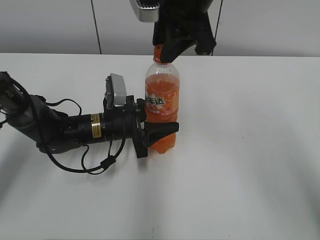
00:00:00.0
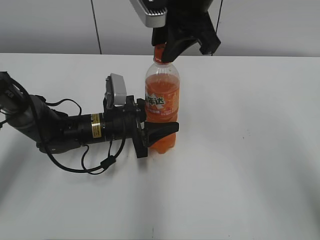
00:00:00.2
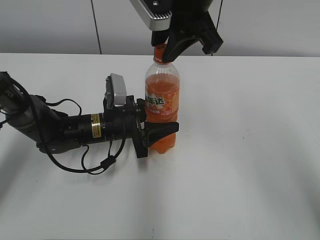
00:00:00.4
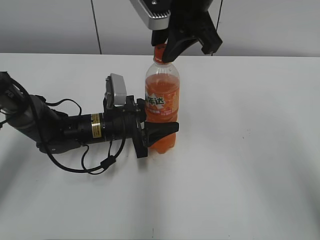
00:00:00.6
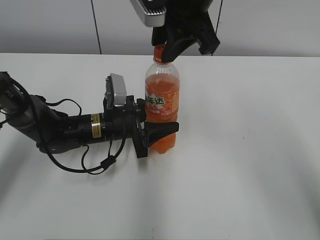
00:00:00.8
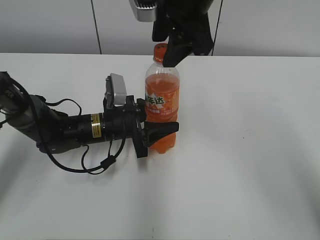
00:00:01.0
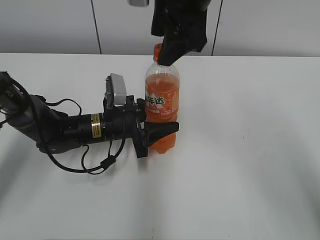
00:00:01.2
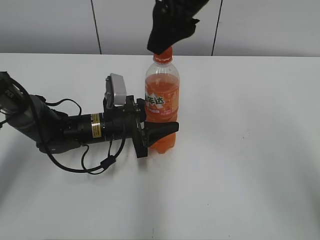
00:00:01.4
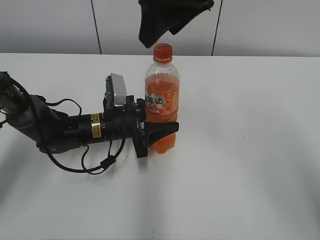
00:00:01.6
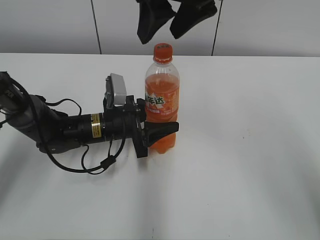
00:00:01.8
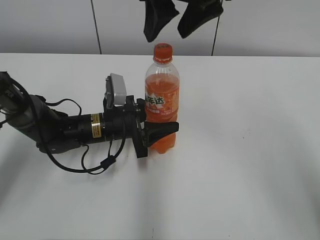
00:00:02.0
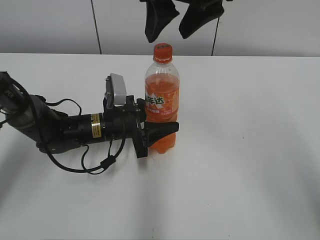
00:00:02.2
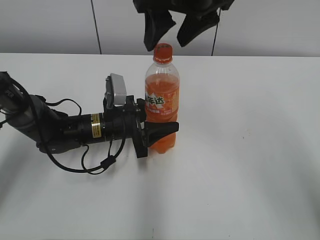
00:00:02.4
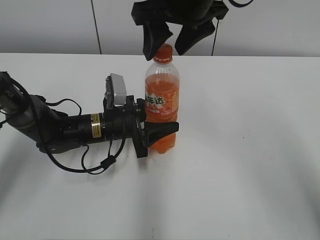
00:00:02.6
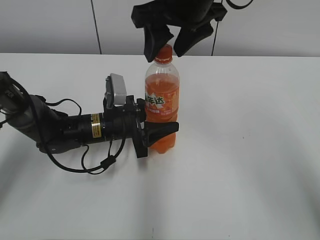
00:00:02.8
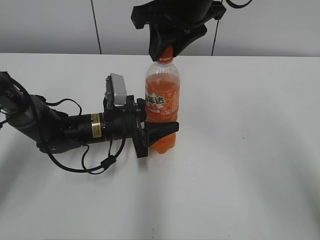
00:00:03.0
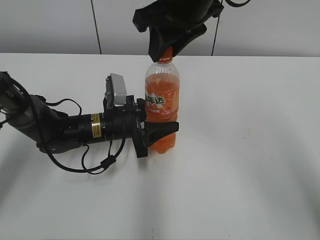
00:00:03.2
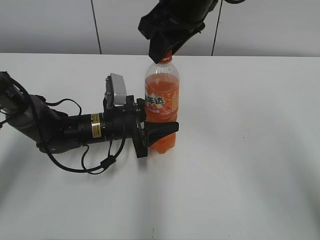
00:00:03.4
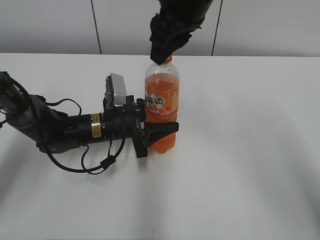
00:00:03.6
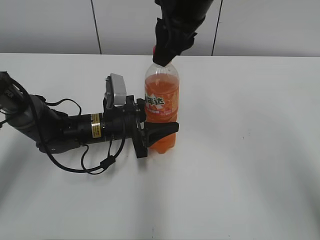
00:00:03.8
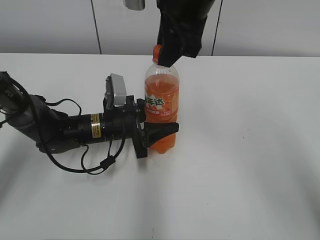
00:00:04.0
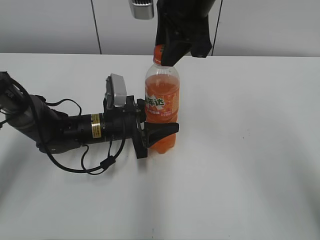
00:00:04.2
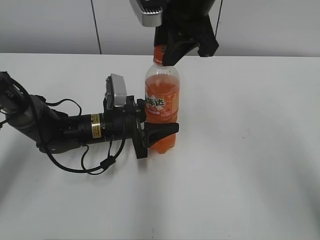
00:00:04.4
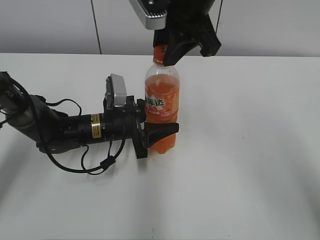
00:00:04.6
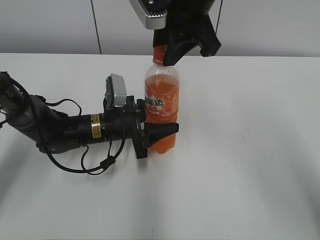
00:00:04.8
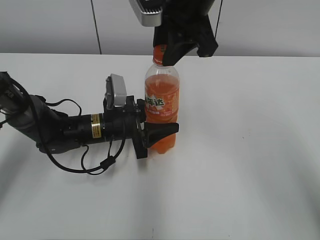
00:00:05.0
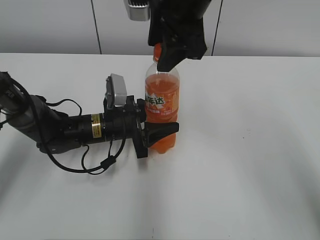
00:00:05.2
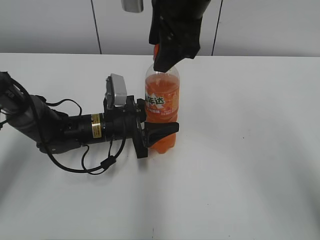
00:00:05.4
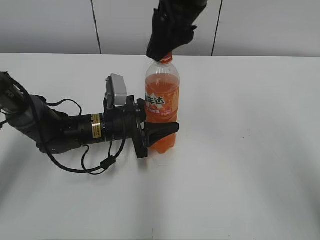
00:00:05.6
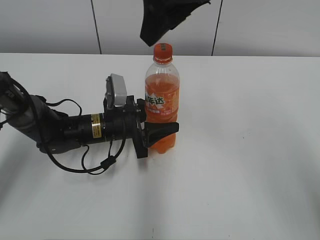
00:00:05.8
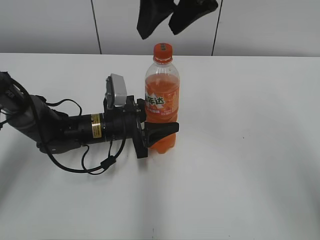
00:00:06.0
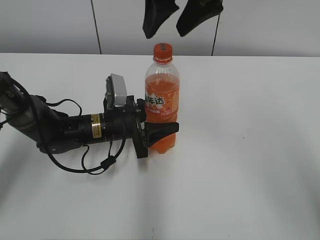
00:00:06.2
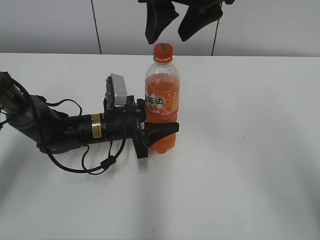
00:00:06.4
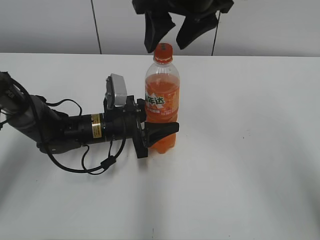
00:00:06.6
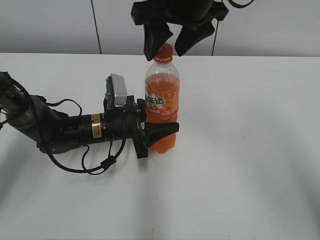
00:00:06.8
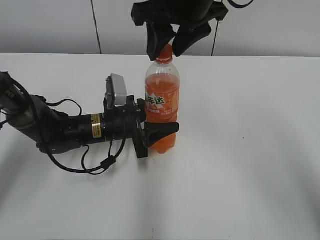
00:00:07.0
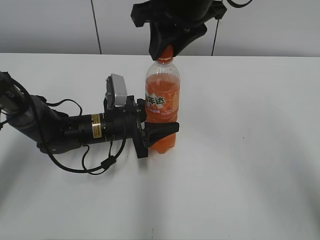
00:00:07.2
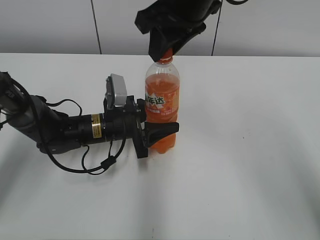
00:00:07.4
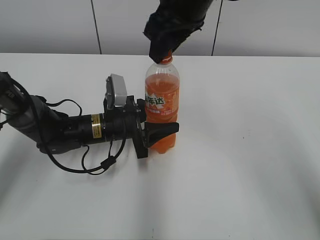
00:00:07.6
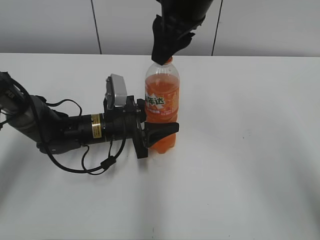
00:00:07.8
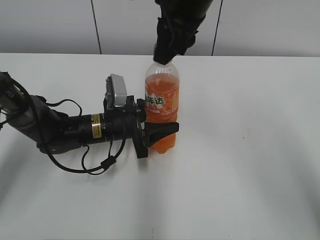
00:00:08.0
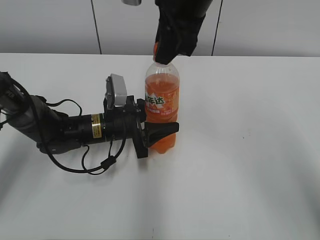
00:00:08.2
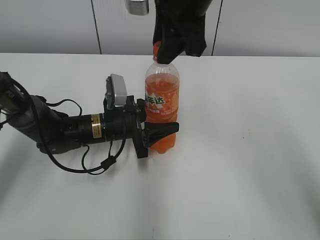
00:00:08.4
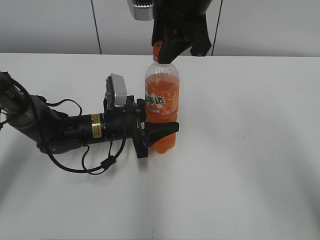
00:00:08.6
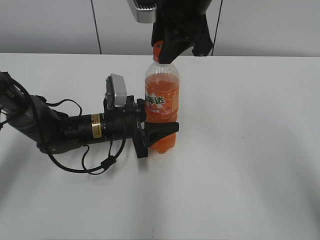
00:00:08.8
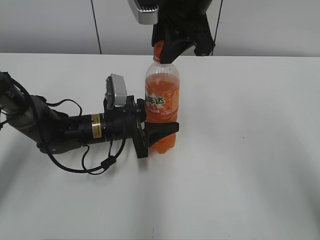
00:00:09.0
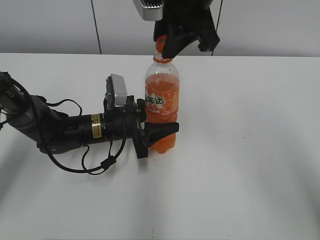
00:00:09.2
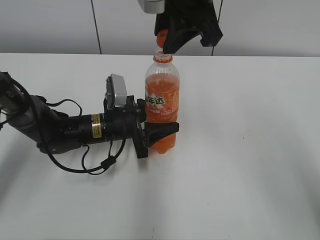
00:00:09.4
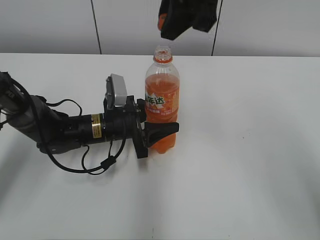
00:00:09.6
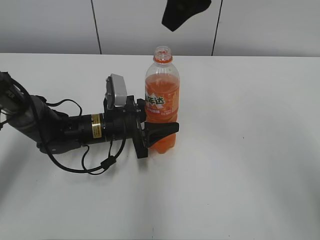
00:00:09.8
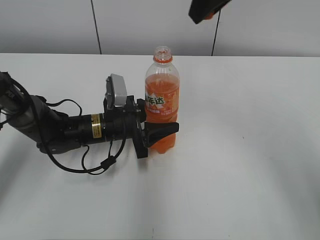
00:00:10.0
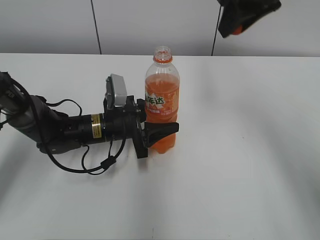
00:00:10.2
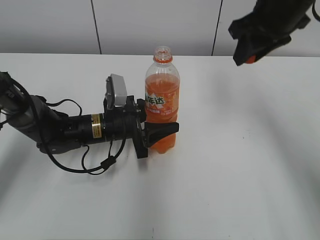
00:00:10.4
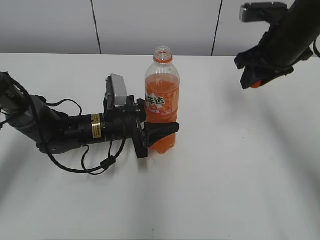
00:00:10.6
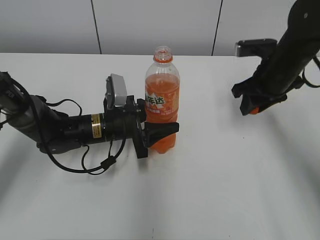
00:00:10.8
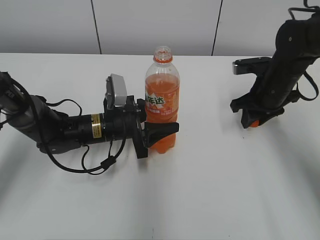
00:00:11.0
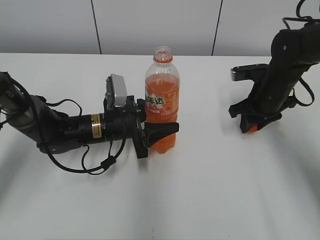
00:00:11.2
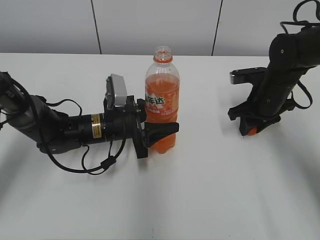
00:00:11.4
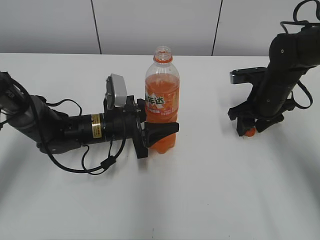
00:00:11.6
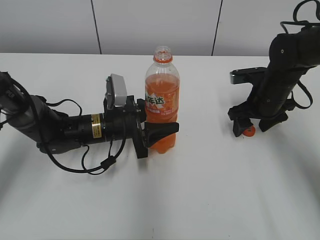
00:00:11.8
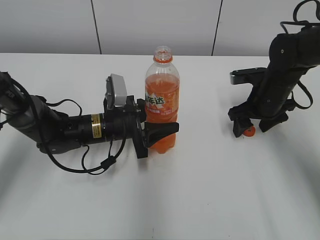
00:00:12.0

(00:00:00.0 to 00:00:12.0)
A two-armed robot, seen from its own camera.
Step, 00:00:09.6 - 00:00:11.8: Place the bottle cap on the right.
00:00:00.0 - 00:00:01.6: The right gripper opens its fingers.
00:00:01.6 - 00:00:03.0: The right gripper closes up.
00:00:04.4 - 00:00:06.0: The right gripper opens its fingers.
00:00:06.0 - 00:00:07.6: The right gripper closes up.
00:00:09.0 - 00:00:10.4: The right gripper shifts about 15 cm to the right.
00:00:10.4 - 00:00:12.0: The right gripper is displaced downward by some 20 cm, and opens up.

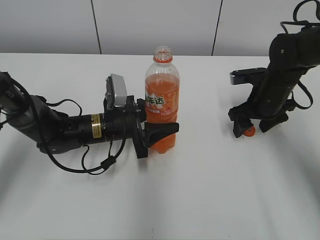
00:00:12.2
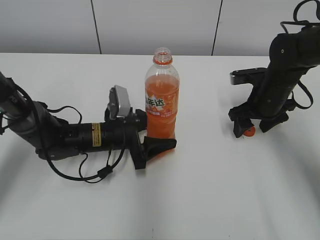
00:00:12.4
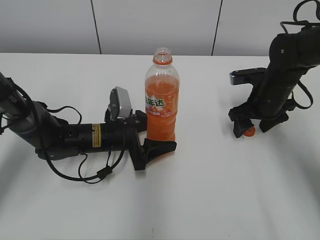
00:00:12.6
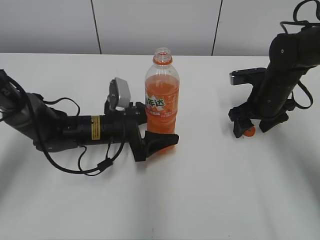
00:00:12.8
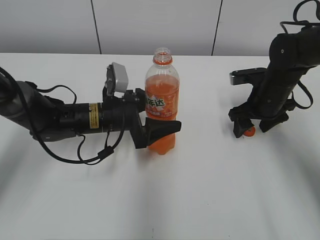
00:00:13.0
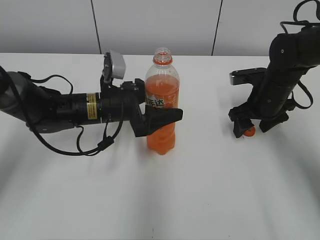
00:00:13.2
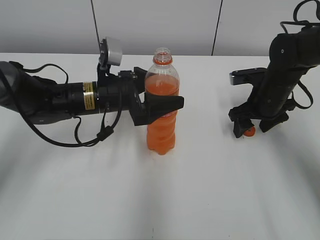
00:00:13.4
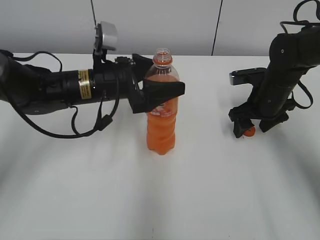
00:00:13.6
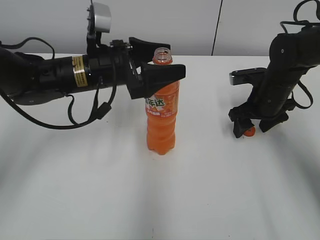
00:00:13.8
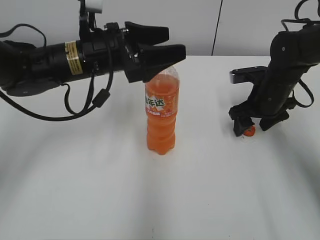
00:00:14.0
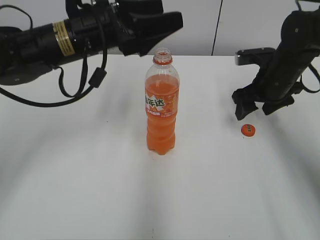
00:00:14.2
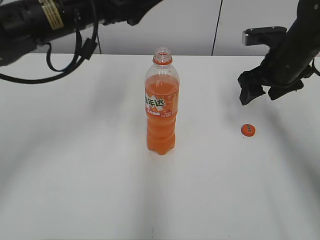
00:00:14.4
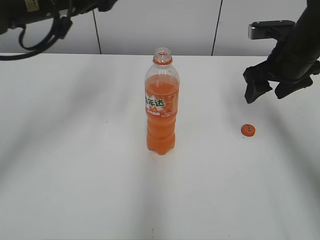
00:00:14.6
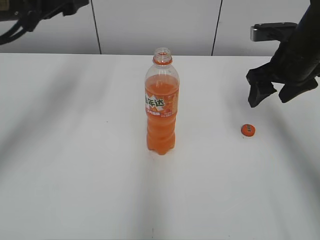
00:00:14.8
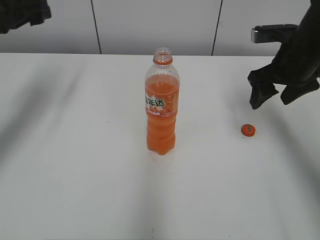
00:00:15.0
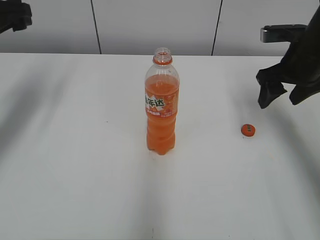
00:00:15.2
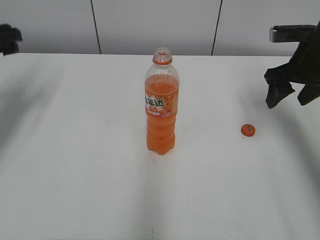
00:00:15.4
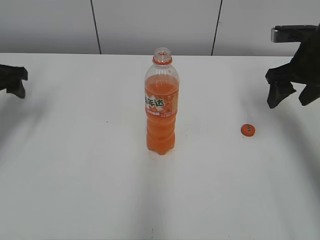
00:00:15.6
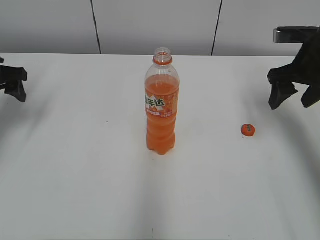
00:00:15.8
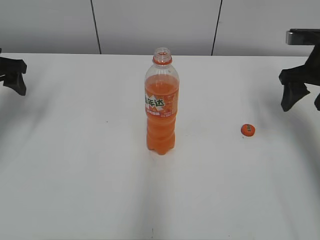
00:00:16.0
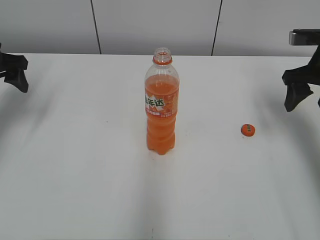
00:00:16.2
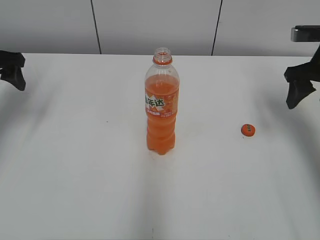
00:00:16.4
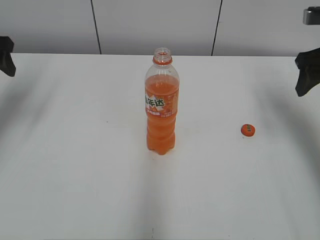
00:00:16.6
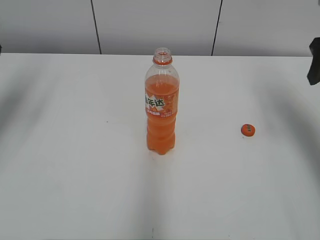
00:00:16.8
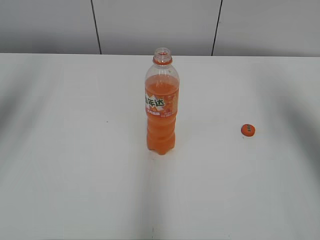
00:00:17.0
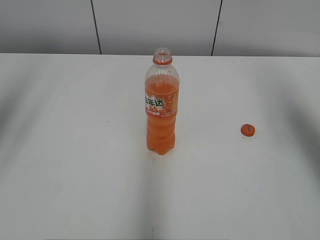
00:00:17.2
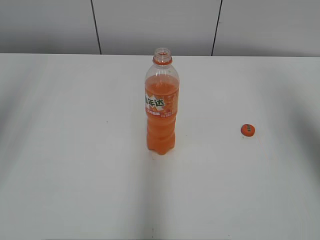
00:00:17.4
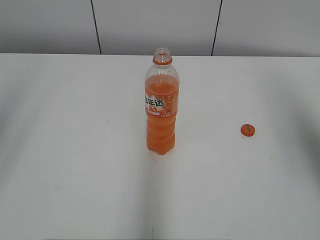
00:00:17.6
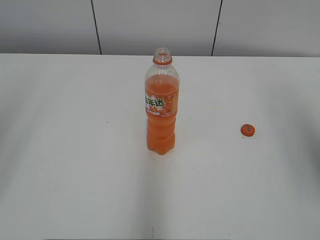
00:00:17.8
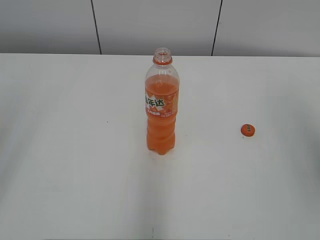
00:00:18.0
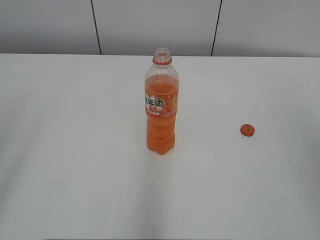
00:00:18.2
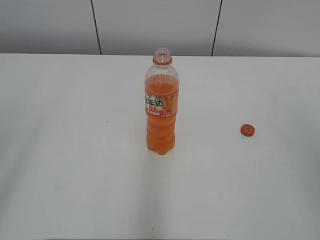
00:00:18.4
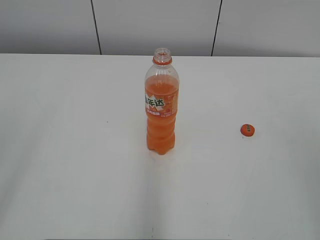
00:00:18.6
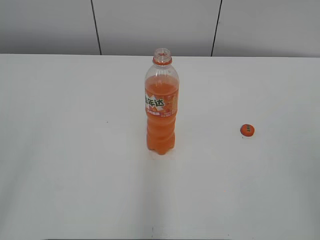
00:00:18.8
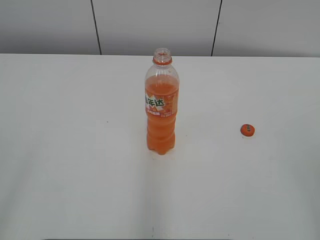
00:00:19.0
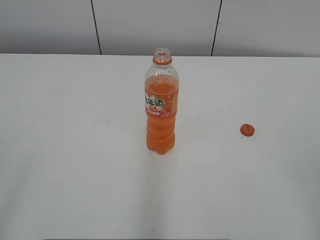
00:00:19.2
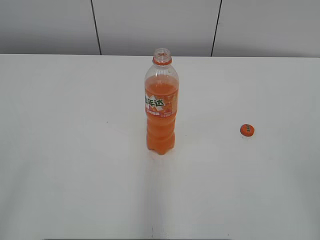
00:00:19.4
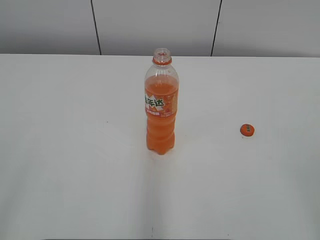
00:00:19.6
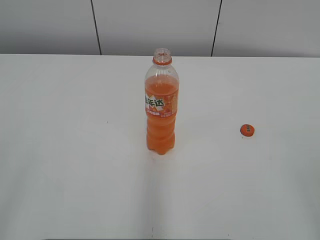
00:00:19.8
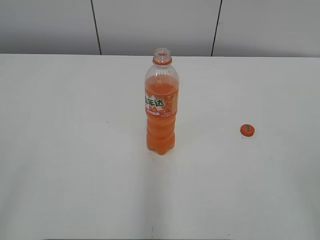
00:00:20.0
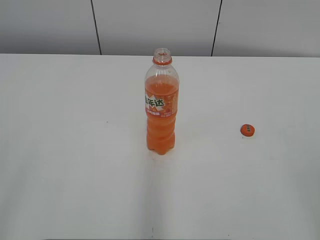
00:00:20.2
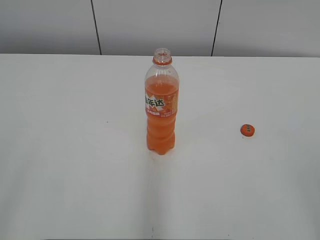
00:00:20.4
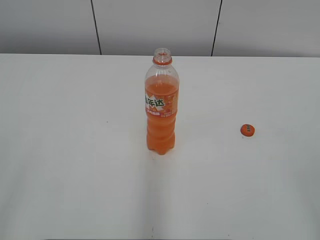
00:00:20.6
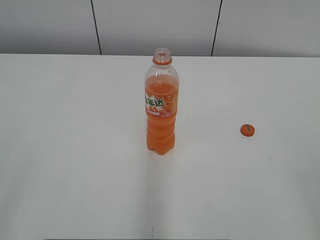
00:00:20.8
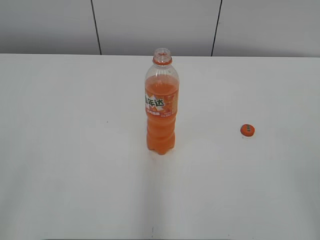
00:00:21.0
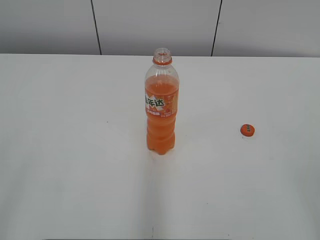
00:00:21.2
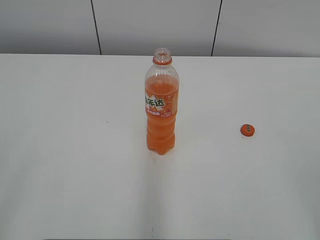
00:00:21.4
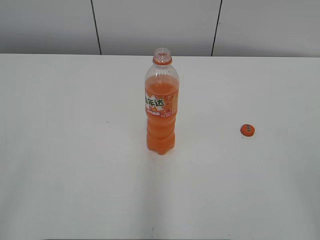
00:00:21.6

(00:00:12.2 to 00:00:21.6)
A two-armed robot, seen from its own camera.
00:00:12.2 - 00:00:13.8: The left gripper travels upward by some 15 cm, and opens.
00:00:13.8 - 00:00:15.4: The left gripper heads to the left, covering roughly 20 cm. The right gripper heads upward, covering approximately 10 cm.
00:00:15.4 - 00:00:17.0: The grippers both shift upward and backward by roughly 15 cm.
00:00:17.0 - 00:00:18.4: Both grippers travel together backward, some 25 cm.
00:00:20.0 - 00:00:21.6: Neither gripper changes place.

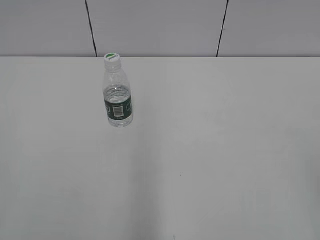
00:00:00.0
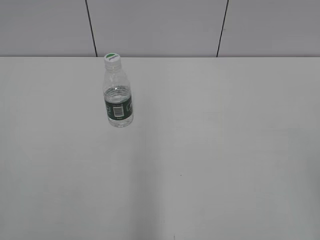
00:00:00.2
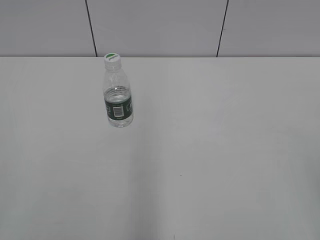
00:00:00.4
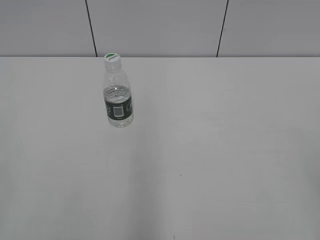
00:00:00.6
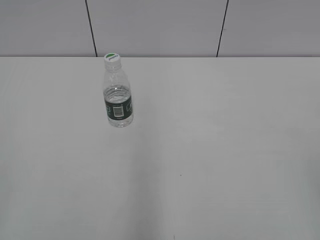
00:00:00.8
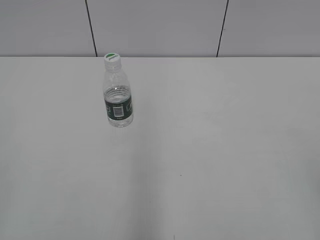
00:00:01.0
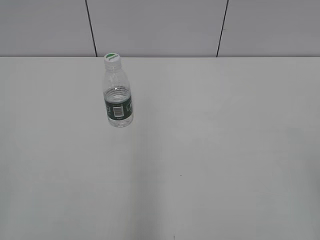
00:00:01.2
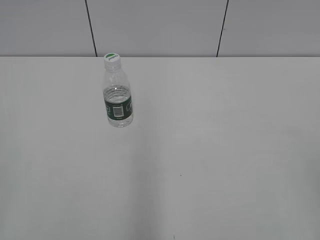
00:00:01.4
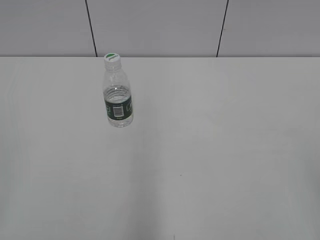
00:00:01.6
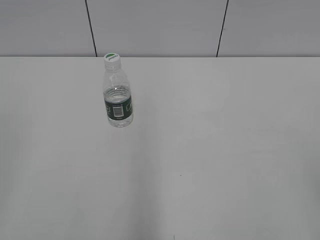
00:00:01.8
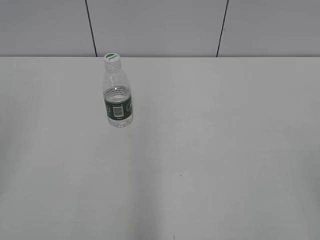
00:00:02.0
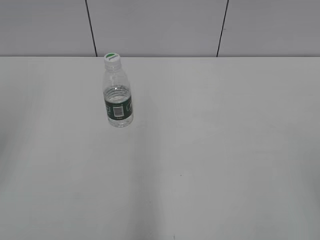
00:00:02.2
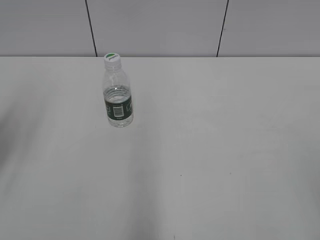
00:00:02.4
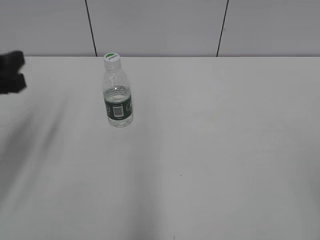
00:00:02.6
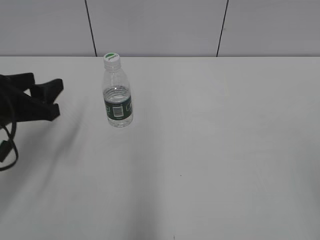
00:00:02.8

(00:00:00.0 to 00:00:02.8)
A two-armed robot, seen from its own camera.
00:00:01.4 - 00:00:02.8: The left gripper moves forward and downward, roughly 30 cm.
